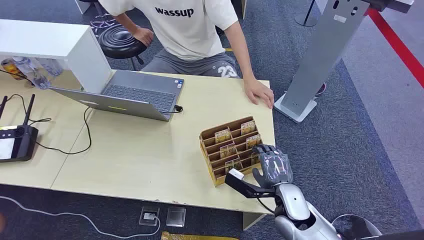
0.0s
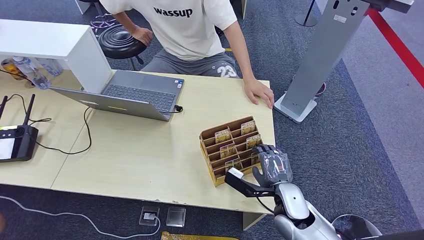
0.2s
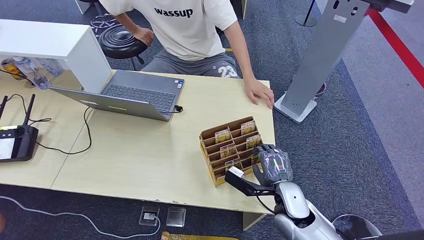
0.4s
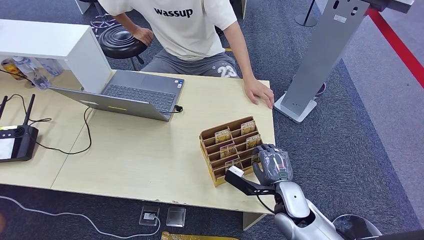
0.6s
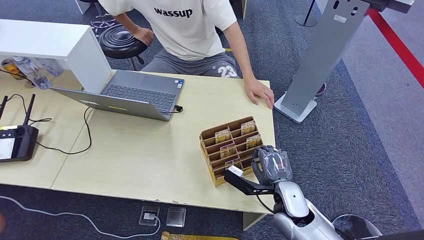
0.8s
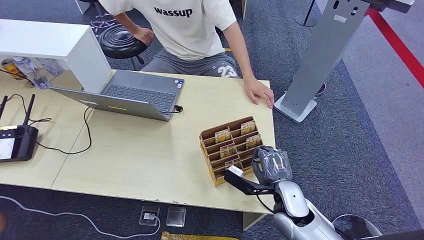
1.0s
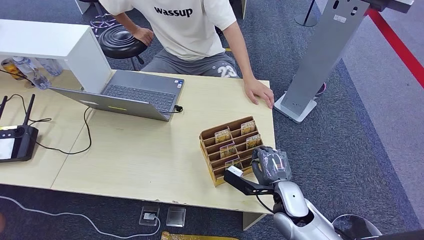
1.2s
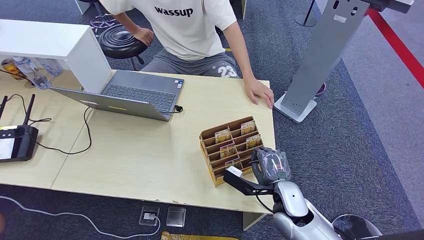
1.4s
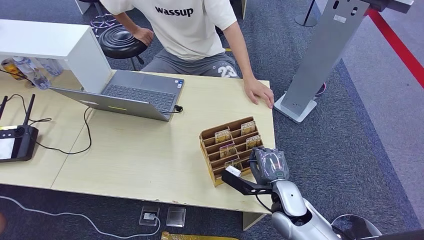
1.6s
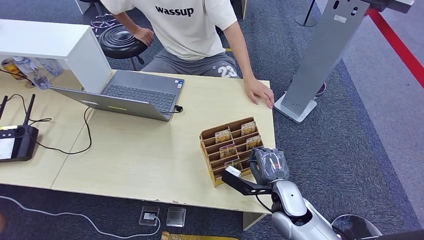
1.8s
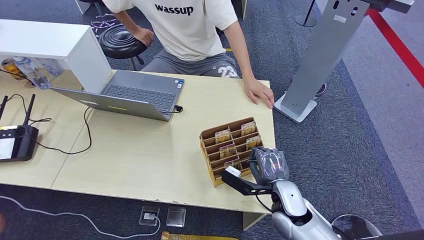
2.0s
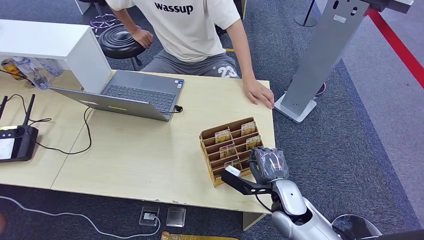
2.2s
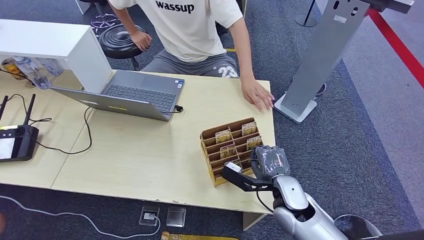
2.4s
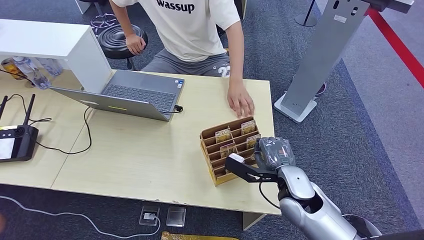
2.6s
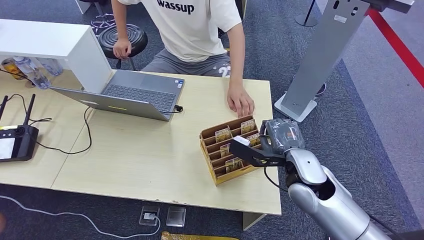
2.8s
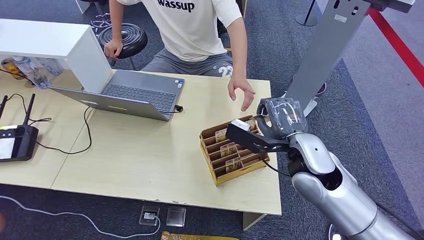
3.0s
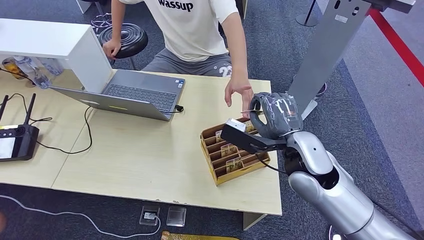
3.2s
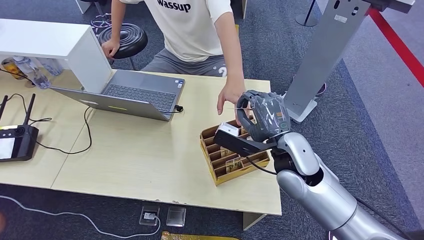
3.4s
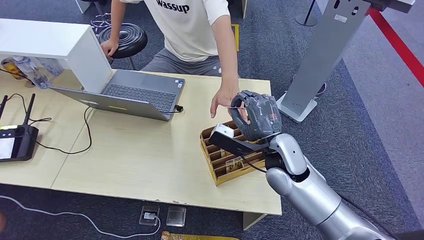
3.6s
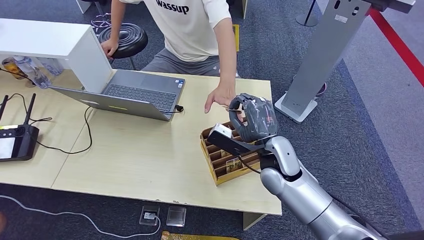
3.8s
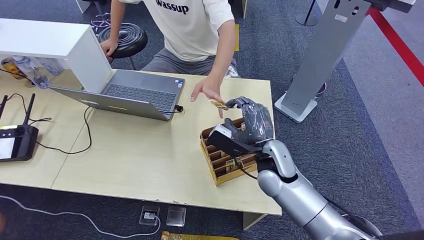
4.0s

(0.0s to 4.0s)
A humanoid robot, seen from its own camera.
Step, 0.0s - 2.6s: Pick up the room card from the card holder.
Step, 3.2s - 4.0s: Hand the room card to the target.
1.4s - 2.6s: The right hand goes roughly 5 cm upward.
2.6s - 4.0s: The right hand moves to the left, roughly 5 cm, and moves about 10 cm upward and comes back.
